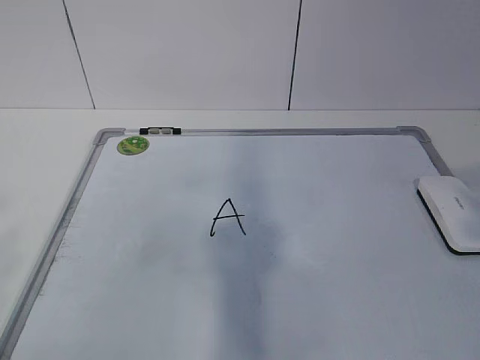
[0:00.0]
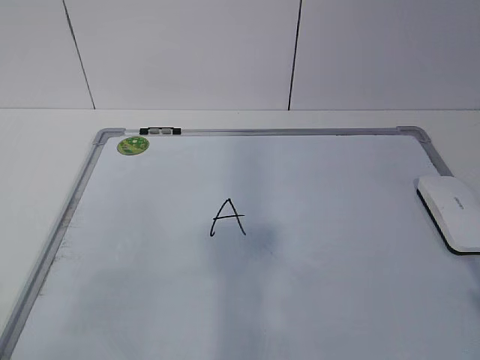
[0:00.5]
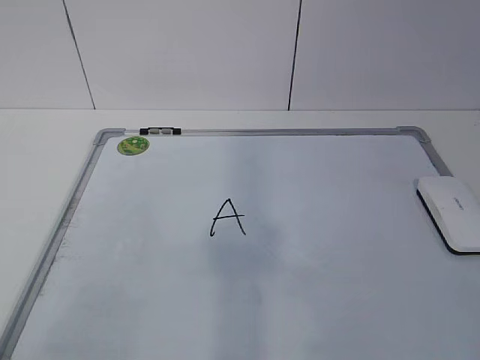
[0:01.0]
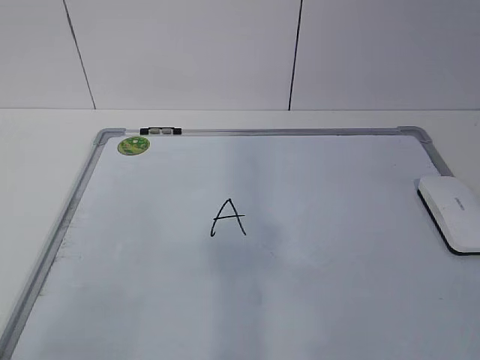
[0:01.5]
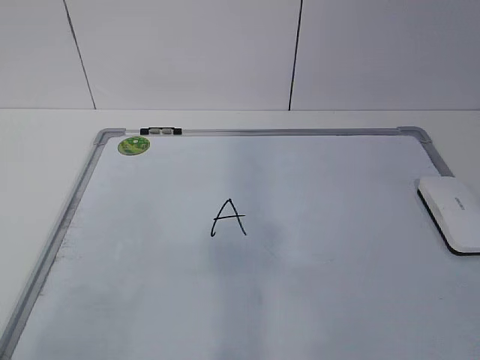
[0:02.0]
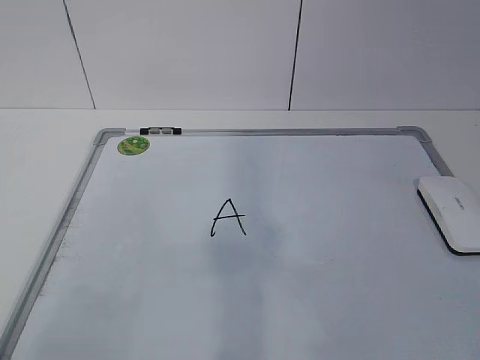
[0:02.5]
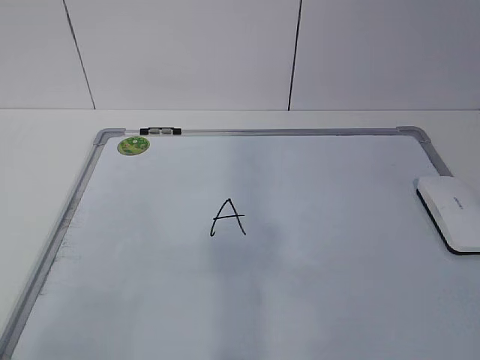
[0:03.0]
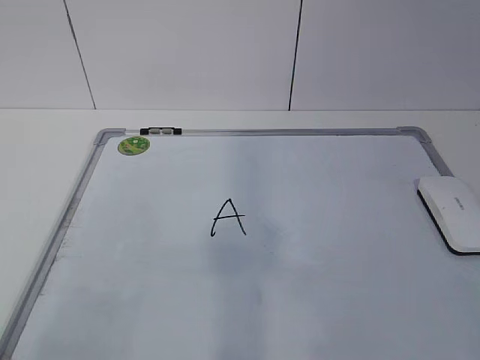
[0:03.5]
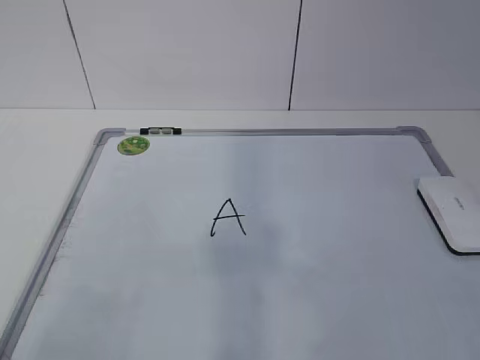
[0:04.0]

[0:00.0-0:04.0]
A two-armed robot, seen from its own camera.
Task of the whole recording: pick up the eraser on the blackboard and erase the letter "a".
0:00.0 to 0:02.0: The left gripper moves downward, some 10 cm; the right gripper travels downward by about 15 cm.
0:02.0 to 0:04.0: Both grippers stay put.

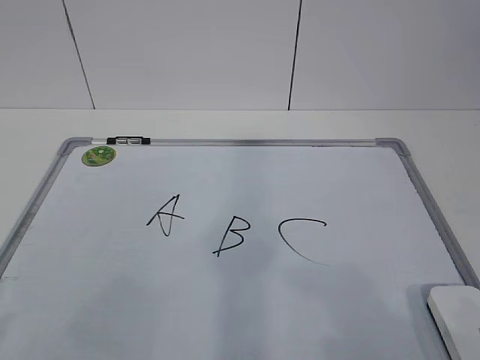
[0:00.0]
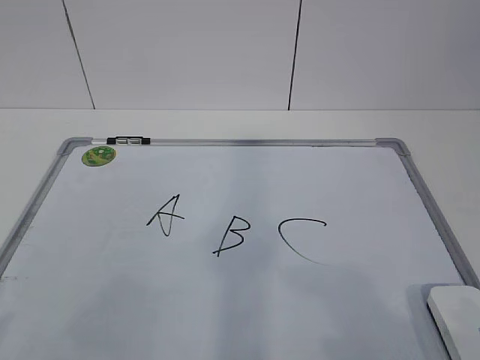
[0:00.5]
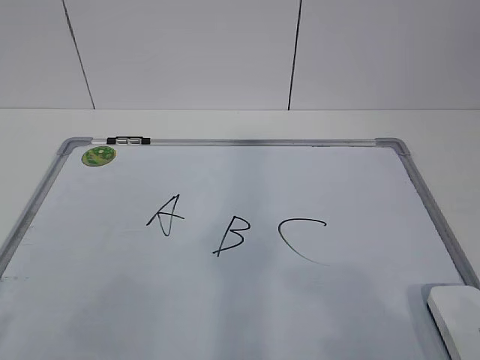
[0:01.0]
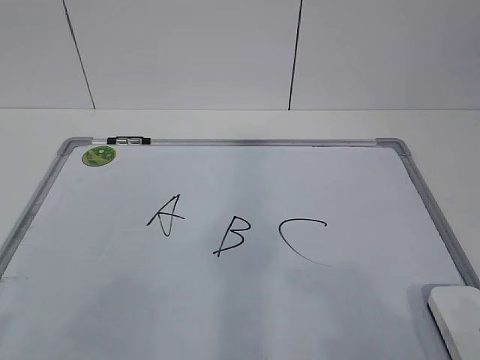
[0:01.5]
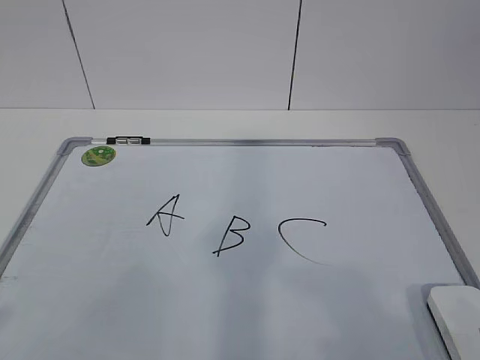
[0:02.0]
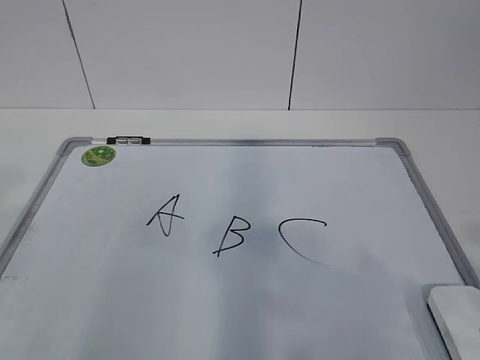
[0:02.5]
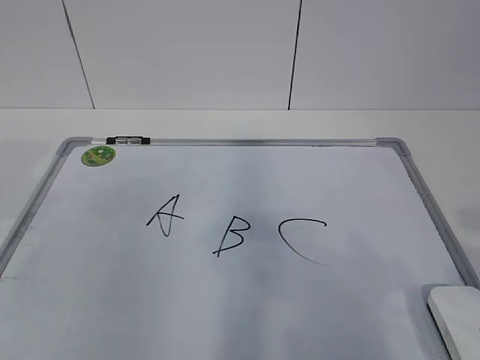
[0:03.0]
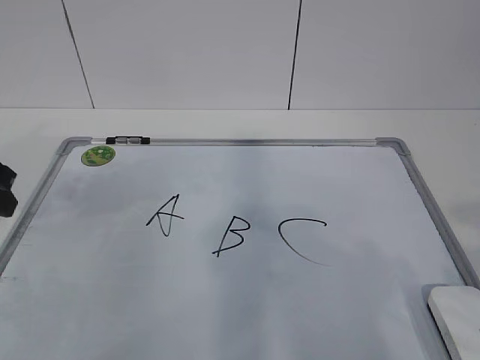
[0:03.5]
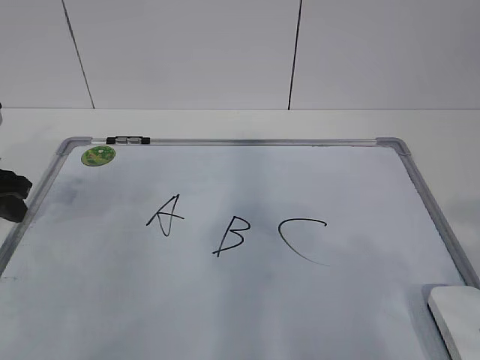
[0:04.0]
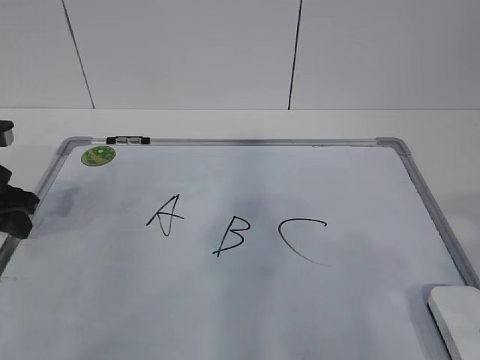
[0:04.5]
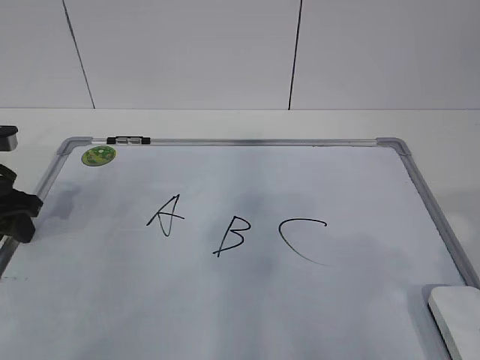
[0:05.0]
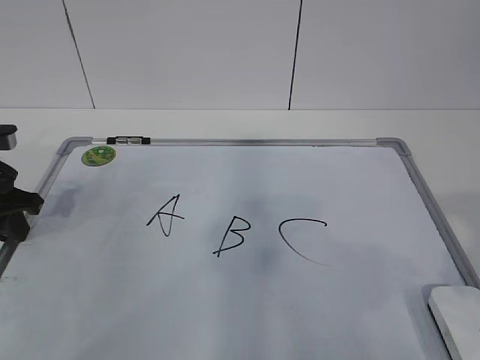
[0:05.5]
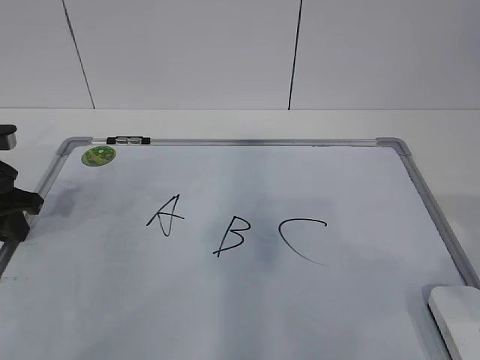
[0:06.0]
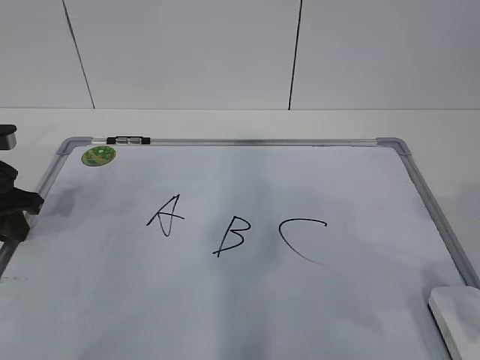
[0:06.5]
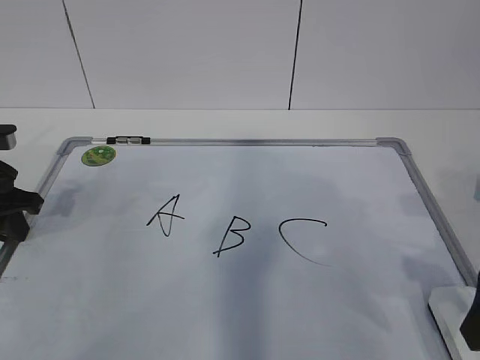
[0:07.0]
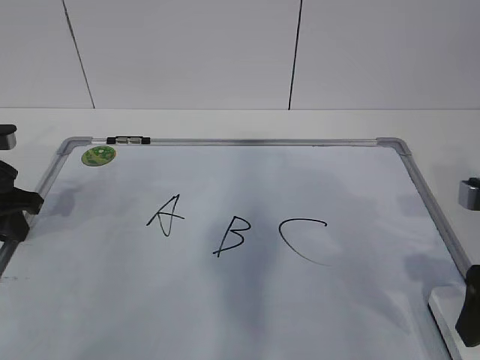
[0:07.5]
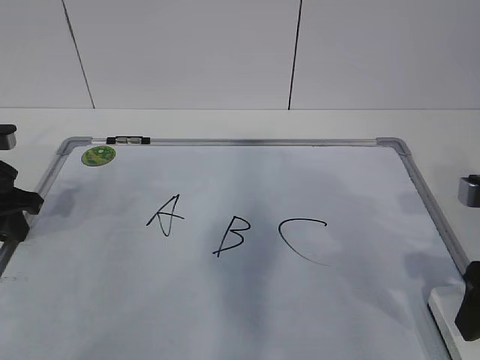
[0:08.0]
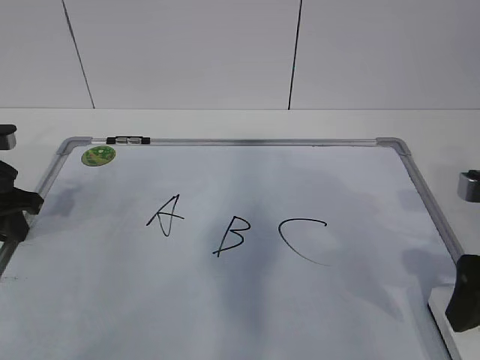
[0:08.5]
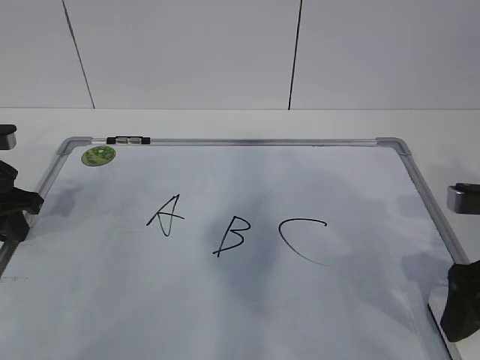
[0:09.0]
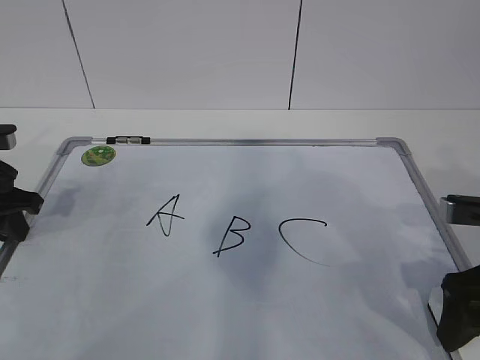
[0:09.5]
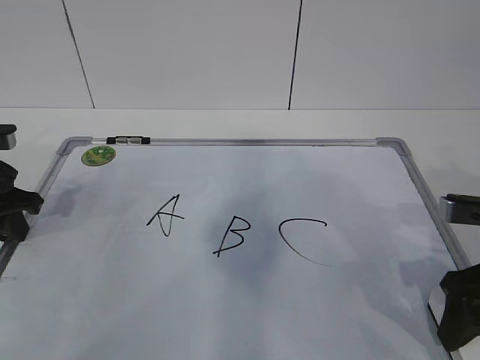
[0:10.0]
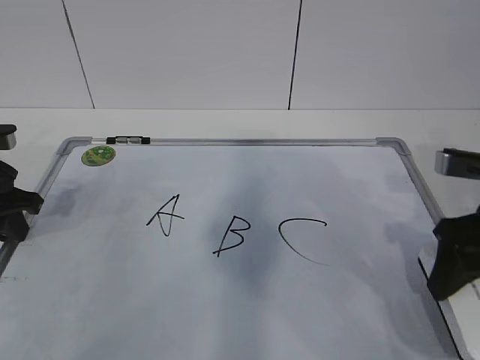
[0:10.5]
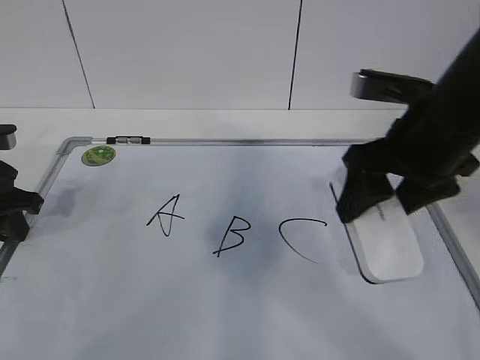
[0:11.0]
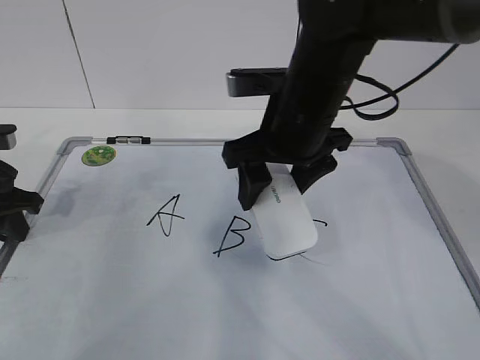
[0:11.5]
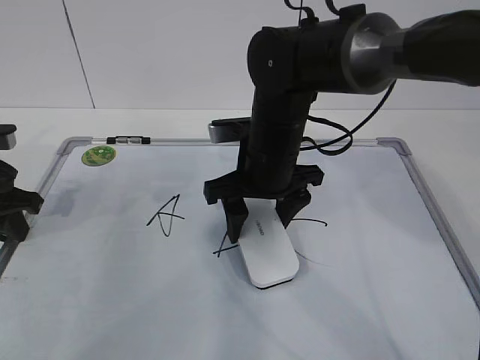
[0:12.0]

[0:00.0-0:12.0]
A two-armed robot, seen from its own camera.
Task of the whole recording: pick up the eraser on the blackboard and erase the letter "B".
Step, 0:00.0 to 0:04.5: Hold the drawing board steady with your left hand.
0:02.0 to 0:04.0: The left gripper moves forward, about 30 cm.
0:04.0 to 0:06.0: The left gripper closes.
0:06.0 to 0:08.0: The right gripper heads forward and downward, covering some 15 cm.
0:08.0 to 0:10.0: The right gripper opens, then closes once more.
0:10.0 to 0:12.0: The right gripper is displaced to the left and forward by some 25 cm.

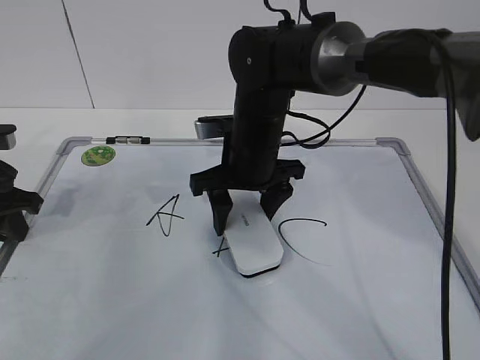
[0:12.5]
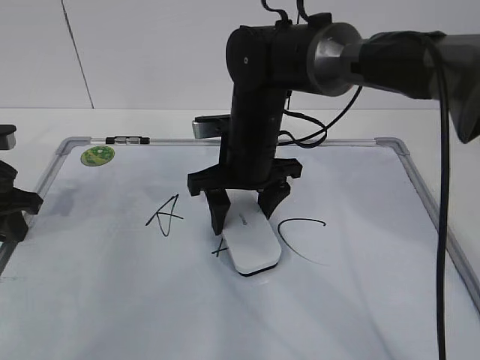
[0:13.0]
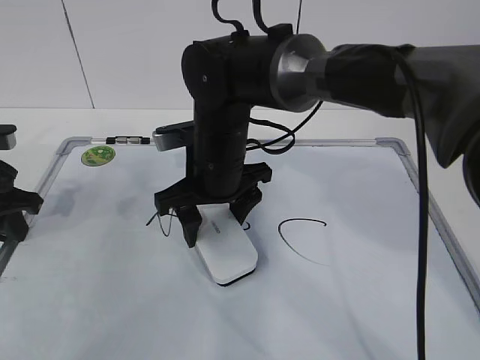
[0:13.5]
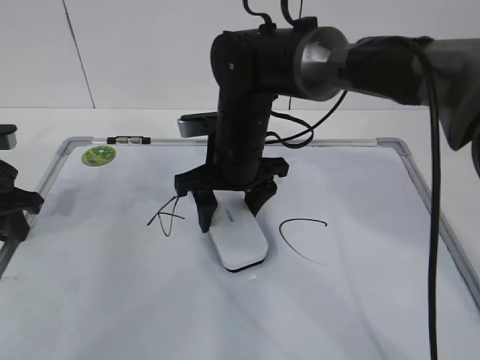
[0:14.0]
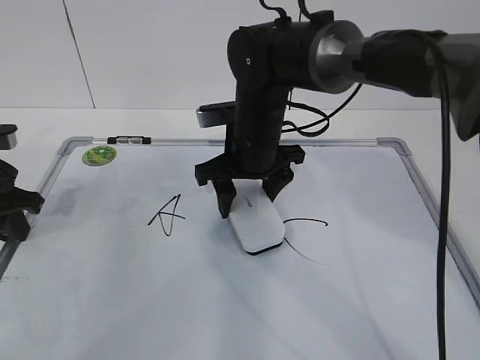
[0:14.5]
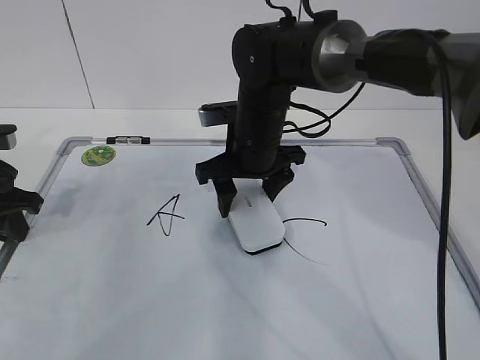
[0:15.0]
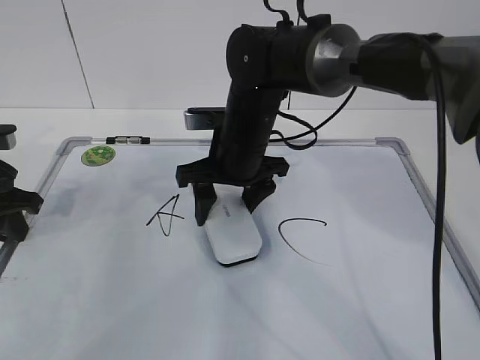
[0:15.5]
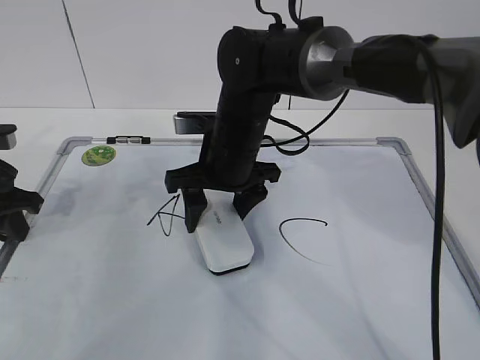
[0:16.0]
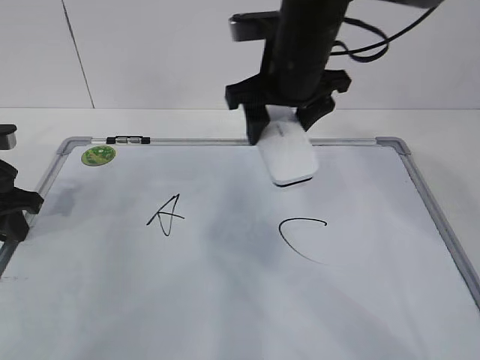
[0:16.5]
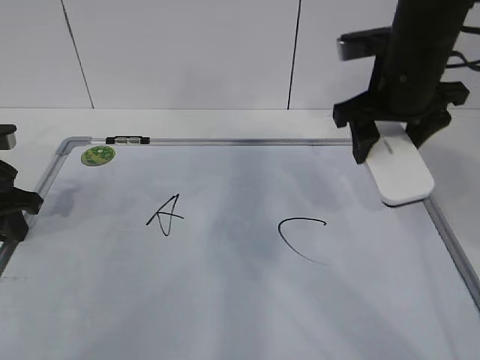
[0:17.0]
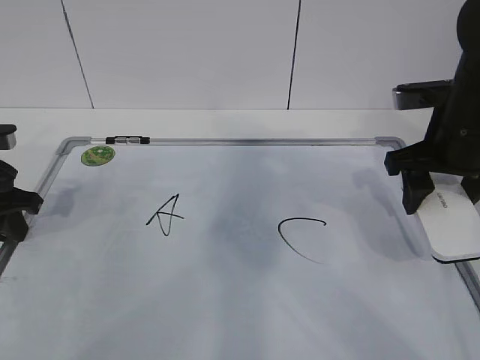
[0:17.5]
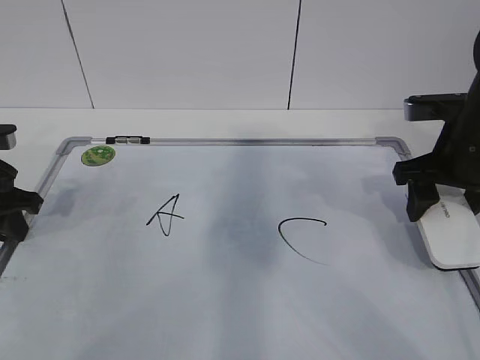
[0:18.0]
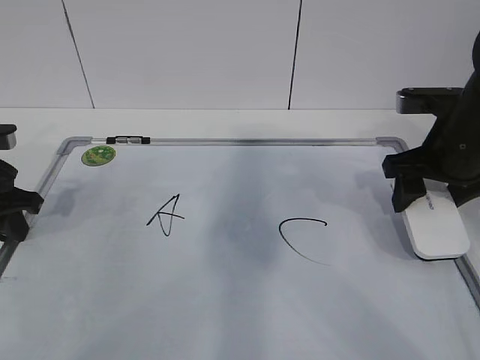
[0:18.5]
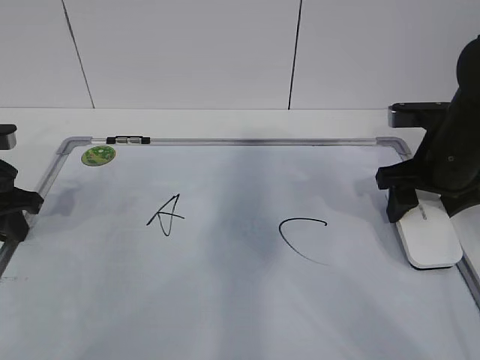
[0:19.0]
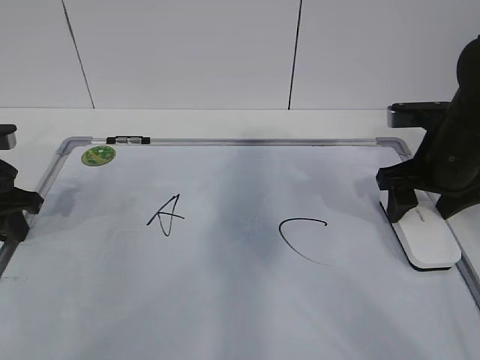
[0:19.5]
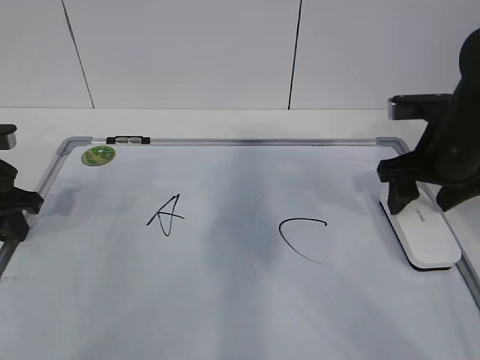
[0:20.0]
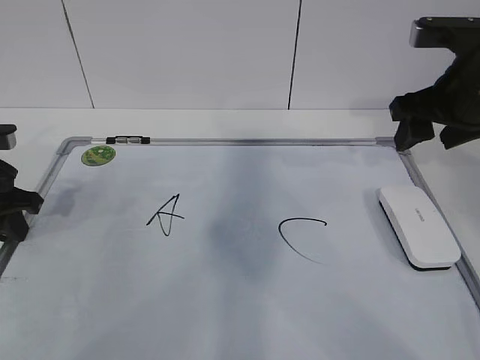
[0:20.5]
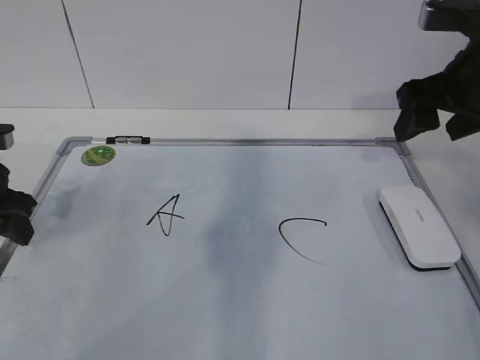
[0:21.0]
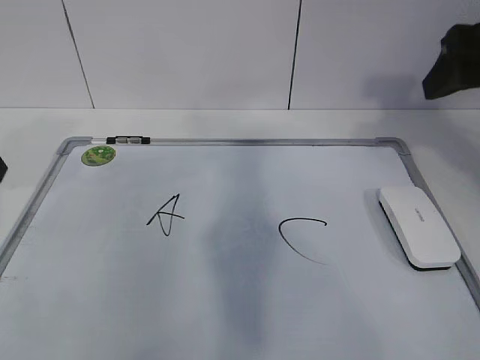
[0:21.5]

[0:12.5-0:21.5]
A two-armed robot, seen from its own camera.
Task of the whole recording: pick up the eraser on the blackboard and erase the letter "B".
Step, 0:13.5 to 0:16.0: Put down the eraser with your right hand.
0:12.5 to 0:14.5: The grippers make only small movements.
0:14.5 to 0:17.0: The right gripper travels to the right and upward by about 15 cm.
0:17.0 to 0:19.5: The right gripper shifts some 10 cm downward and to the right.
0:19.5 to 0:21.5: The right gripper heads upward, covering roughly 15 cm, while the left gripper heads upward, covering some 10 cm, and opens its fingers.
